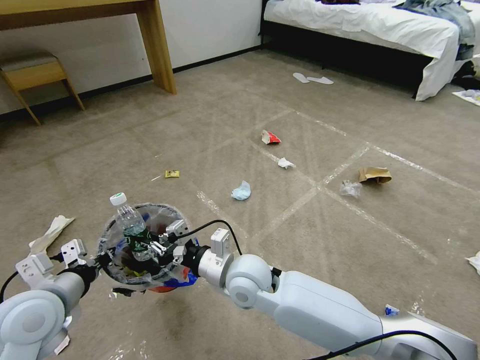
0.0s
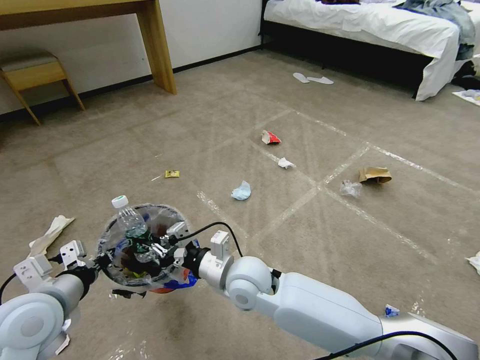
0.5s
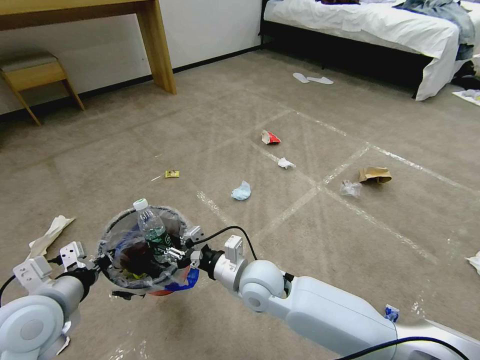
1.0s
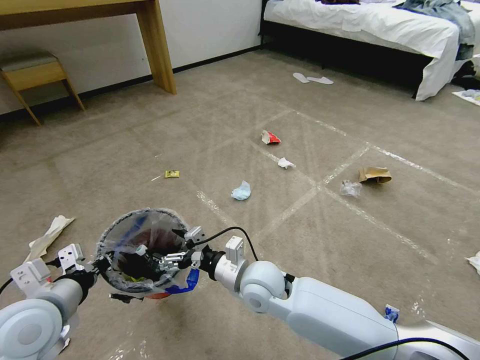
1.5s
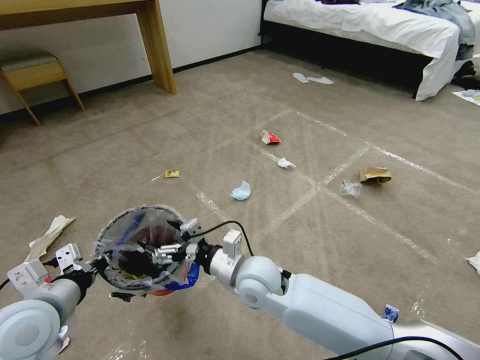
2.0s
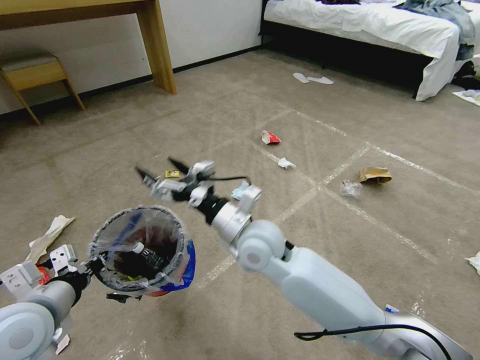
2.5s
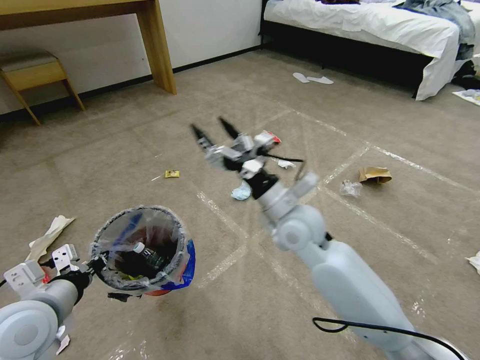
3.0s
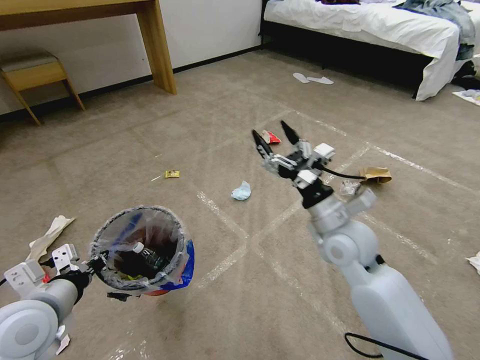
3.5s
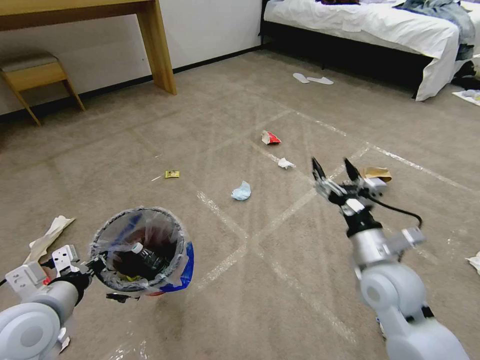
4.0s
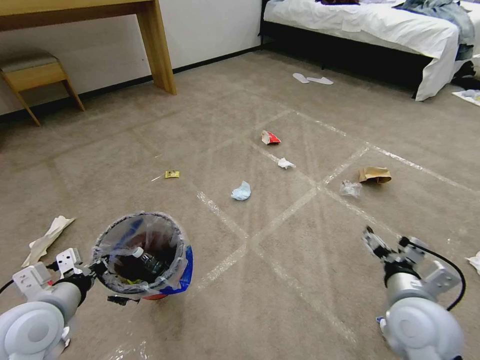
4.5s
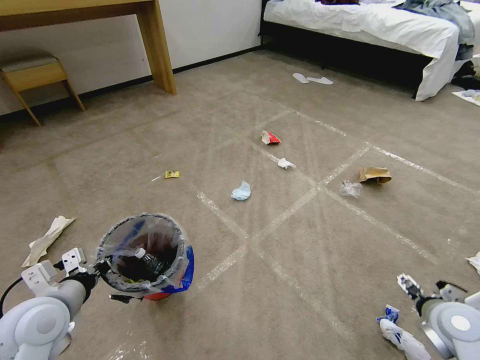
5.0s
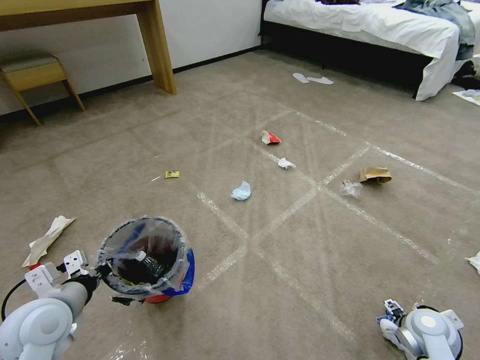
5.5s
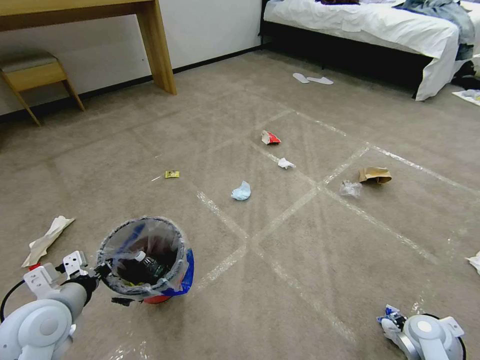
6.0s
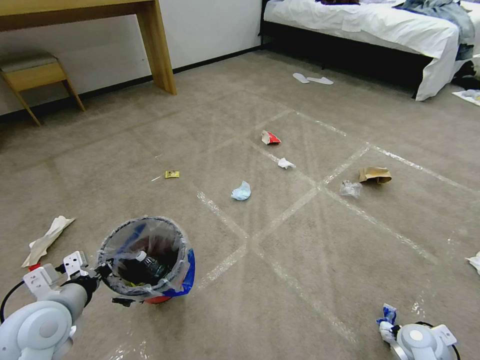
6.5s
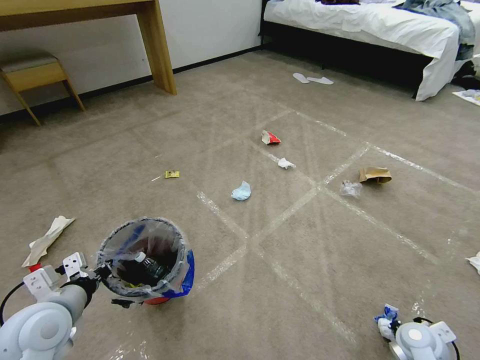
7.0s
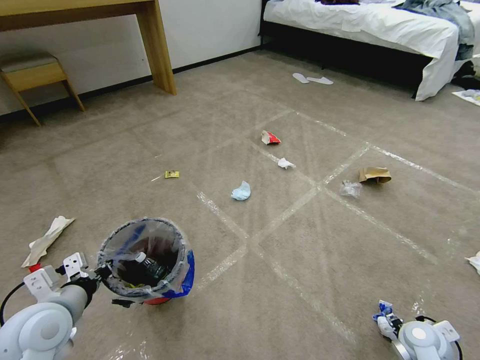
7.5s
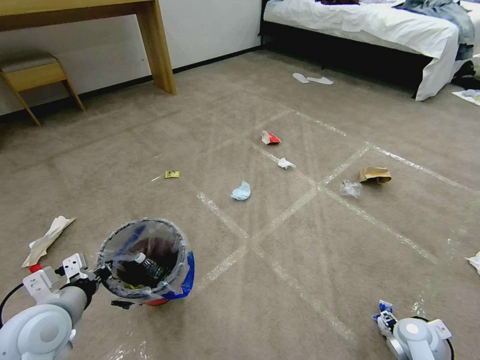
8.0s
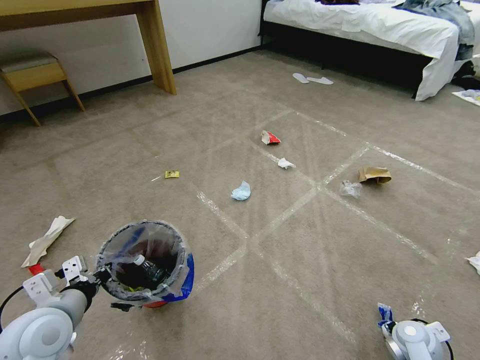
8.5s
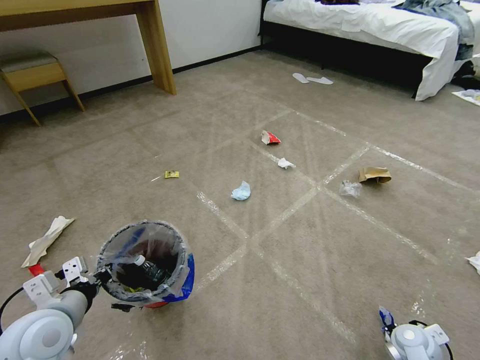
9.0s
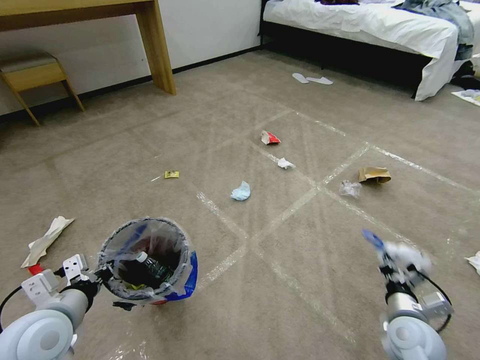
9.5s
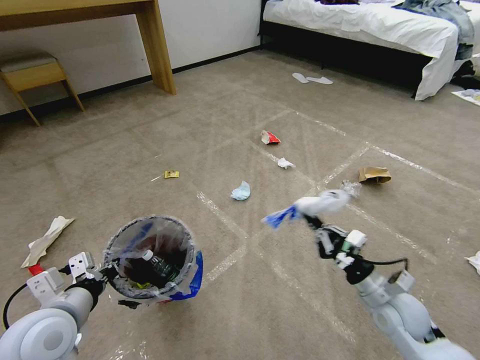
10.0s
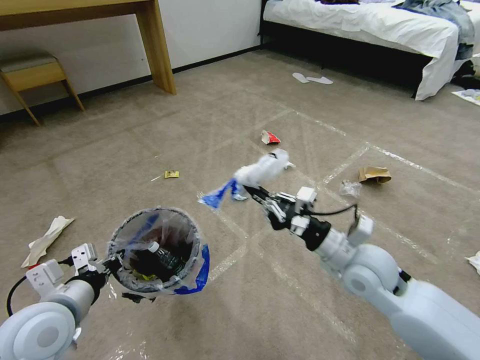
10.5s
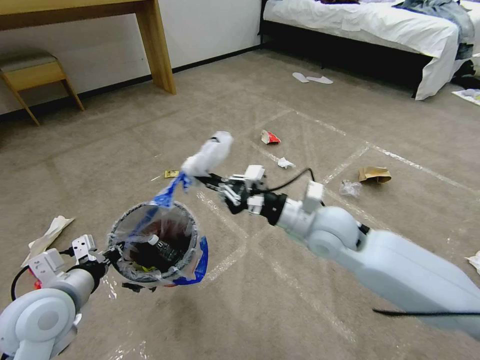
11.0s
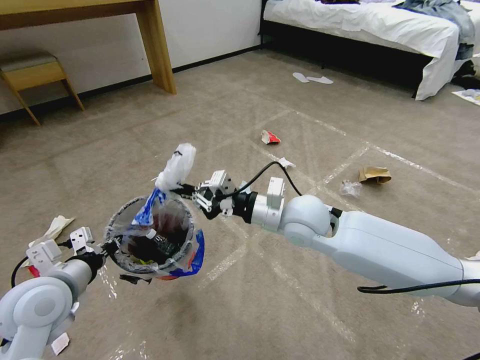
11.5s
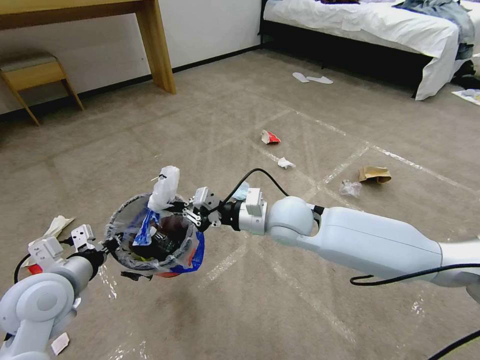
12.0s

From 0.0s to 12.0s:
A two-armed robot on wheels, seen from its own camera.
Task of the whole recording: Pick up the trash bin and place the garbage on the floor into it.
From 0.0s to 2.0s: The right gripper opens.
From 2.0s to 4.0s: The right gripper goes some 25 cm to the right.
From 4.0s to 6.0s: The right gripper goes roughly 25 cm downward and to the right.
From 6.0s to 8.0s: The right gripper closes, then opens again.
From 8.0s to 10.0s: The right gripper shifts roughly 10 cm upward and to the left, and closes up.
From 10.0s to 12.0s: The left gripper goes some 5 cm forward. Meanwhile the right gripper shifts roughly 30 cm to the left, upward and forward.

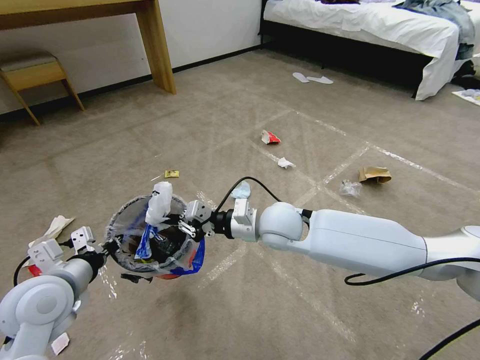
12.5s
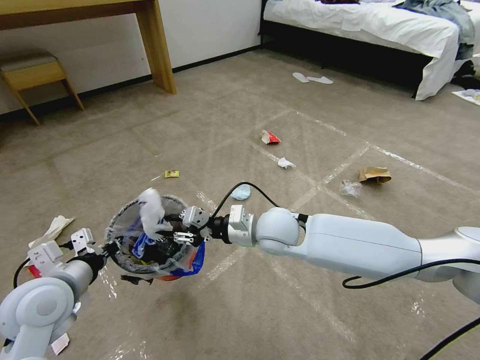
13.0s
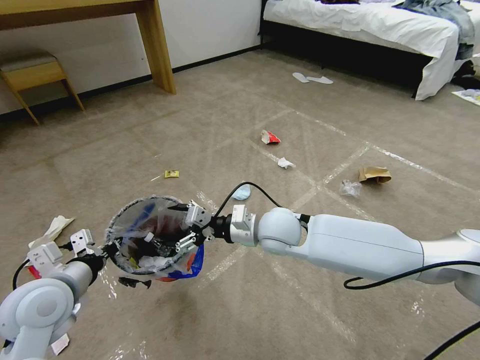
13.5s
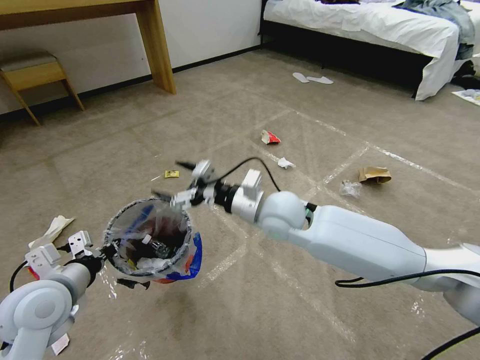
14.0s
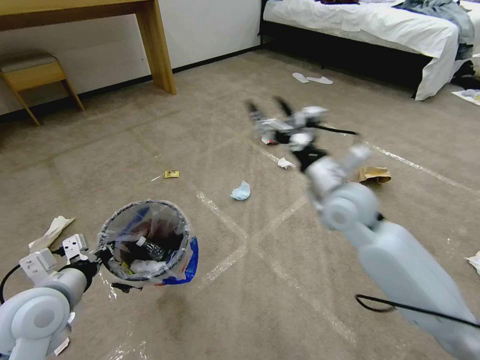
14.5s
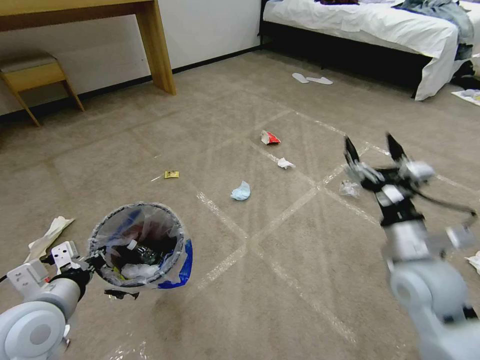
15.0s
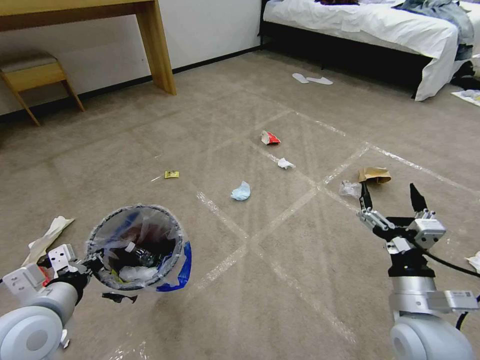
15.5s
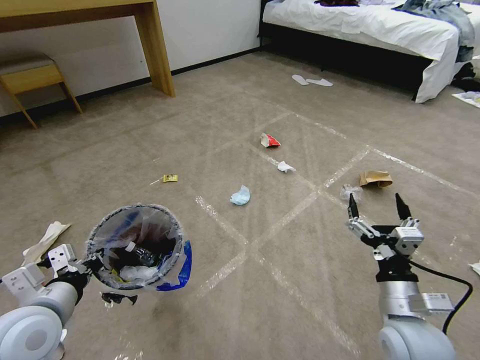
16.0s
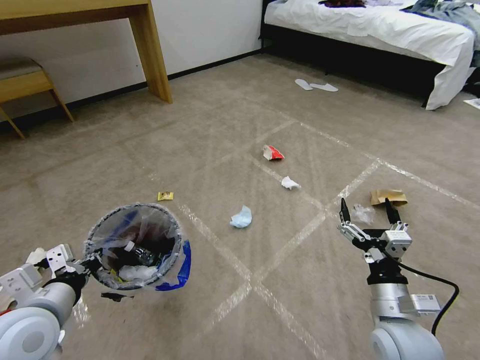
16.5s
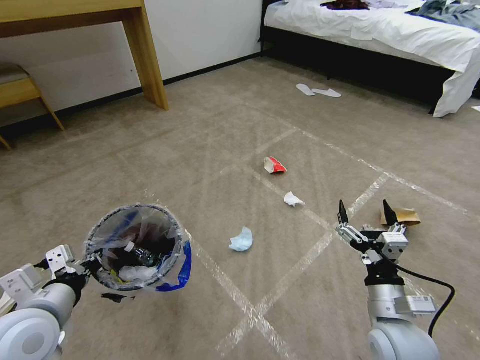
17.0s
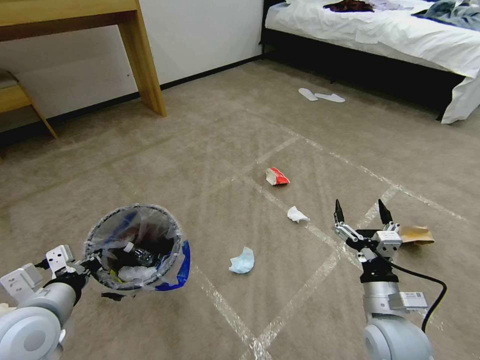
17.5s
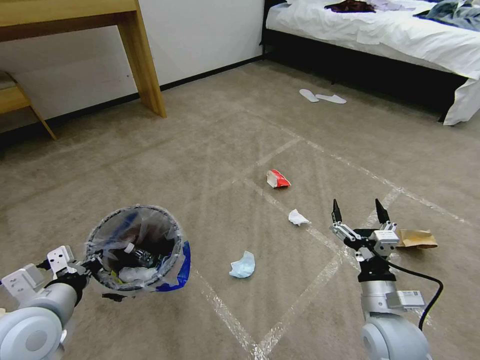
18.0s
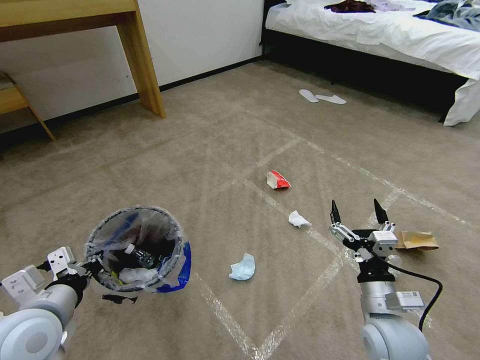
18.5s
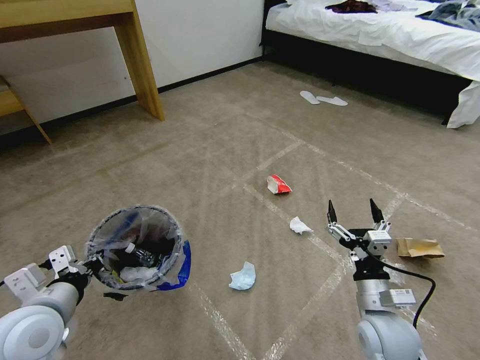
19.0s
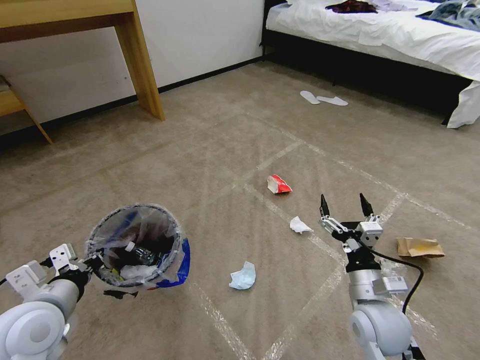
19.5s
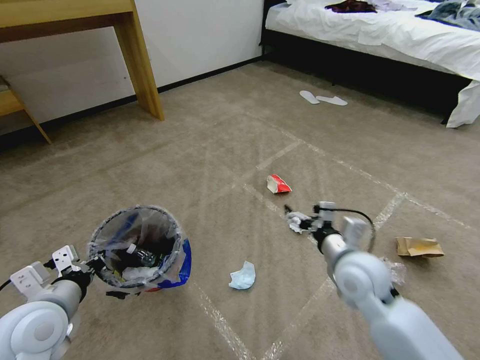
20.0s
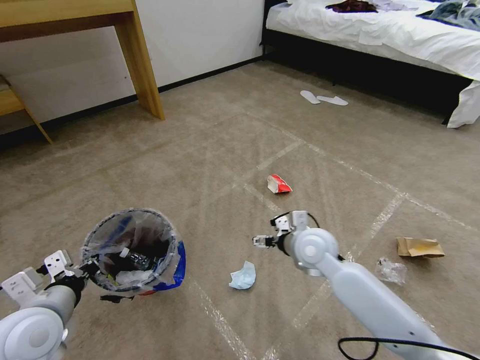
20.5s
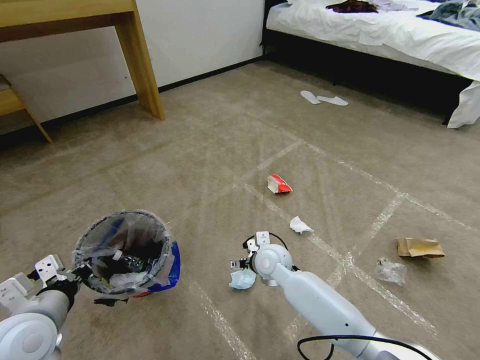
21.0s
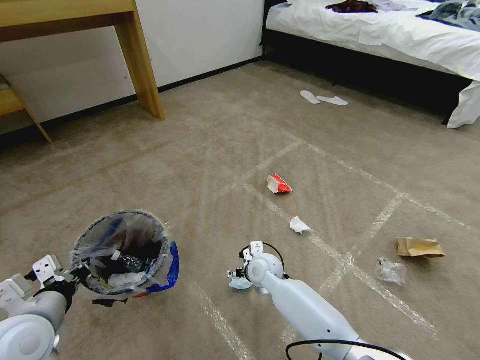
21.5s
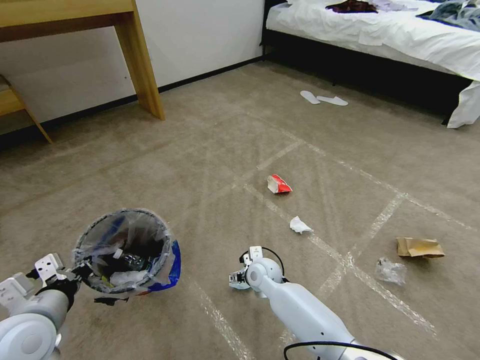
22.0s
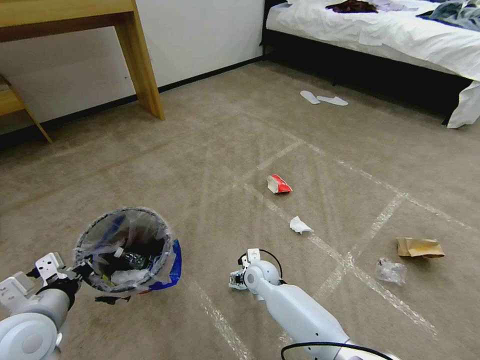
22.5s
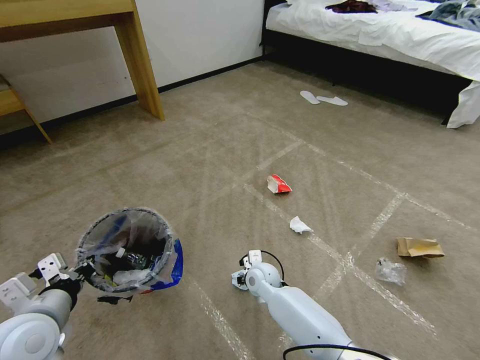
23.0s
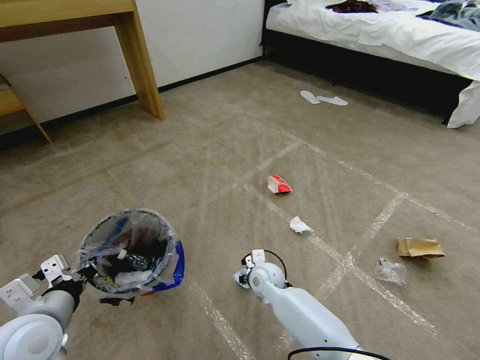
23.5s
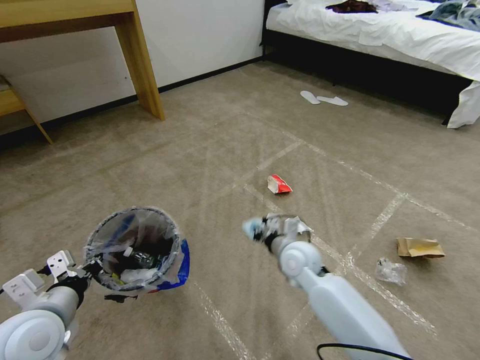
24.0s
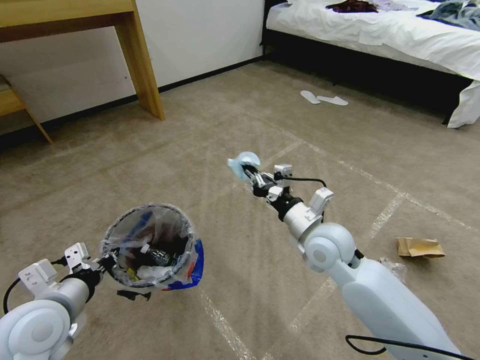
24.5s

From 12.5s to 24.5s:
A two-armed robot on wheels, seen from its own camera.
Task of the whole recording: Pick up the trash bin and place the garbage on the floor into it.
From 12.5s to 14.5s: The right gripper goes approximately 15 cm to the right and upward, and opens its fingers.
From 14.5s to 16.5s: The right gripper heads backward and downward, covering roughly 25 cm.
From 18.5s to 20.5s: The right gripper shifts about 20 cm forward and to the left.
From 20.5s to 22.5s: The right gripper goes roughly 20 cm downward and to the left.
From 22.5s to 24.5s: The right gripper is displaced upward and to the right by about 25 cm, and closes up.

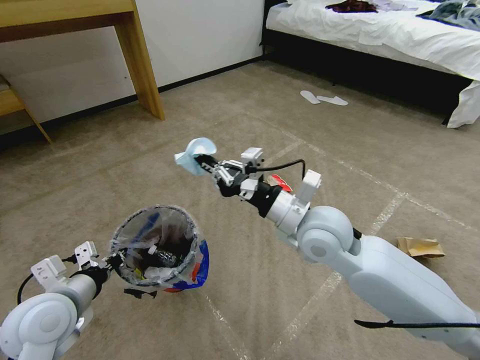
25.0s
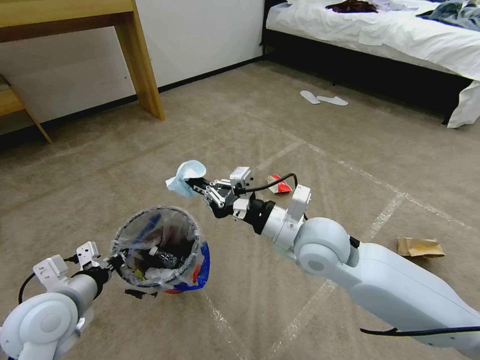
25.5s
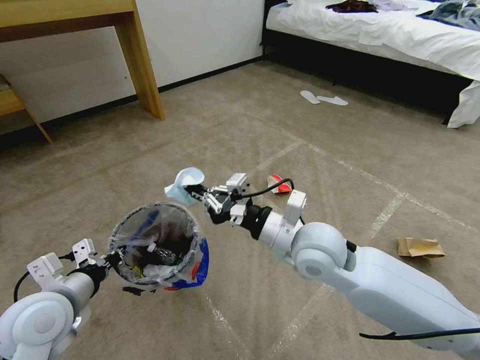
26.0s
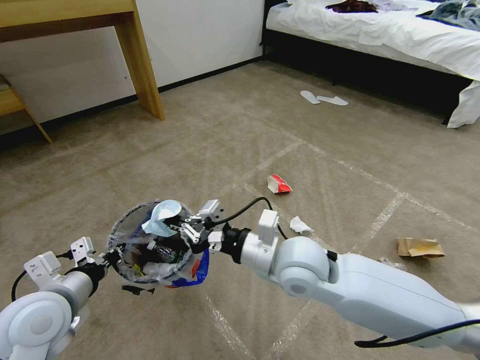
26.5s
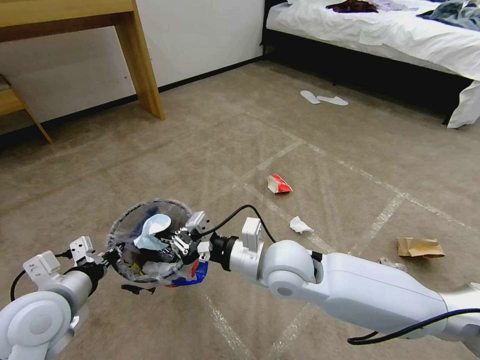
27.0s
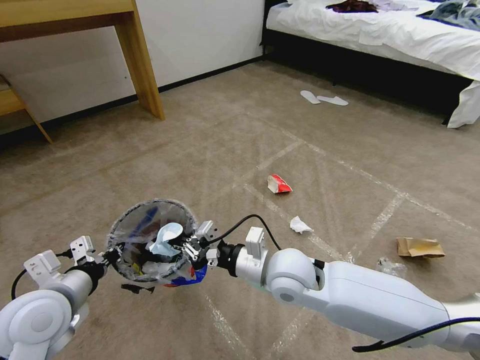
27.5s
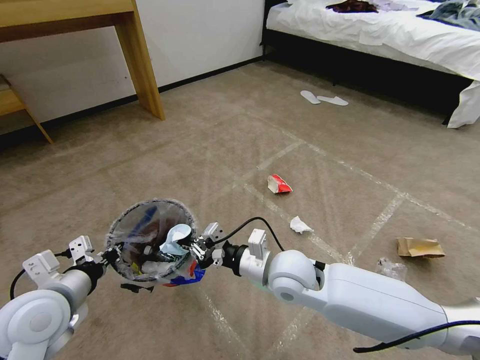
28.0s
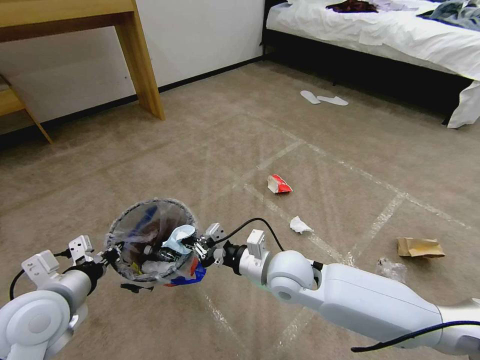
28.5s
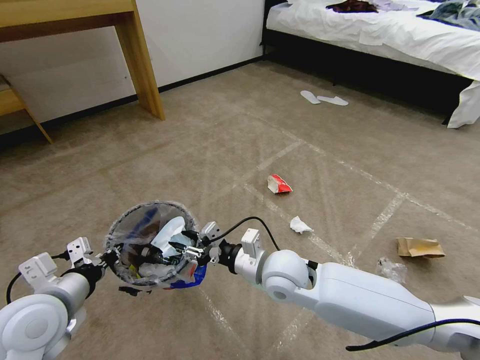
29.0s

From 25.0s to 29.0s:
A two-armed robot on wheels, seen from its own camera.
Task of the whole recording: Pick up the trash bin and place the garbage on the floor into it.
From 25.0s to 27.0s: The right gripper goes approximately 10 cm to the left and downward.
From 27.0s to 29.0s: The right gripper shifts approximately 5 cm downward, and opens.
